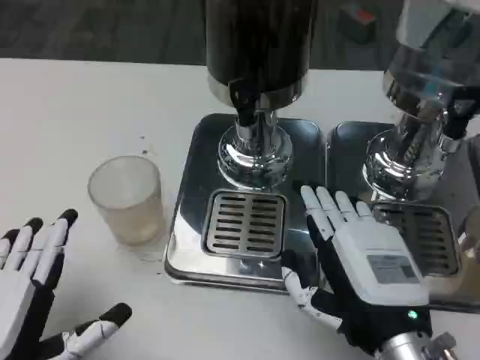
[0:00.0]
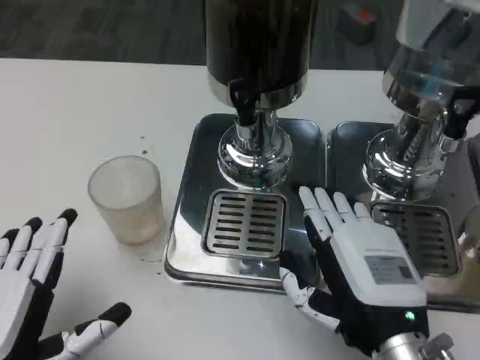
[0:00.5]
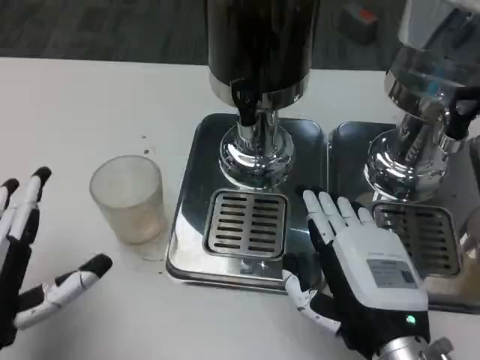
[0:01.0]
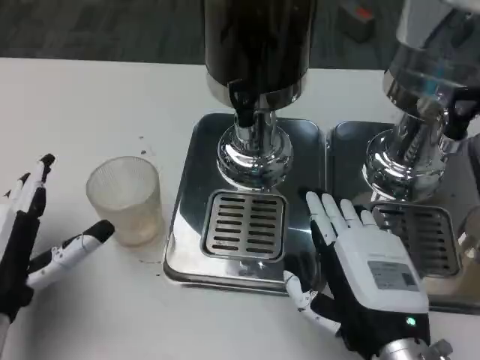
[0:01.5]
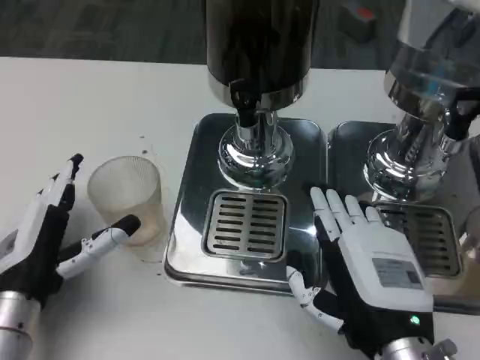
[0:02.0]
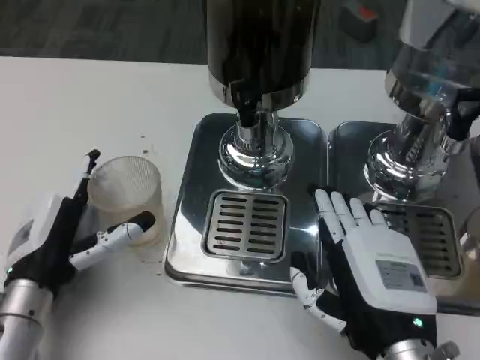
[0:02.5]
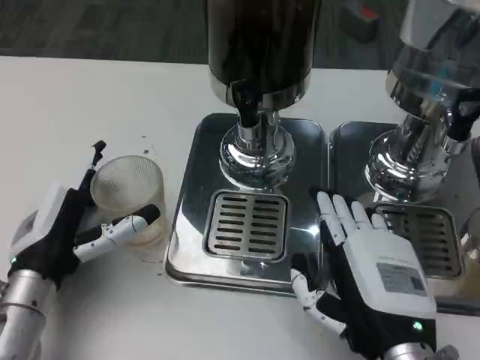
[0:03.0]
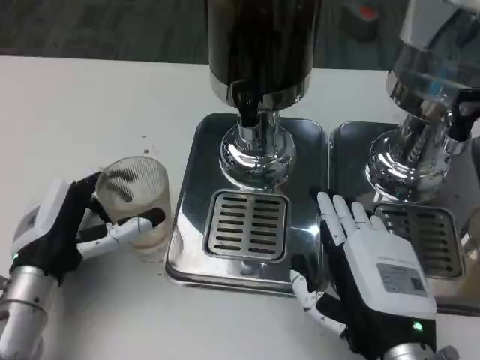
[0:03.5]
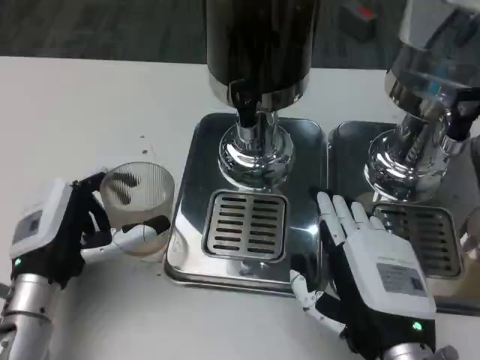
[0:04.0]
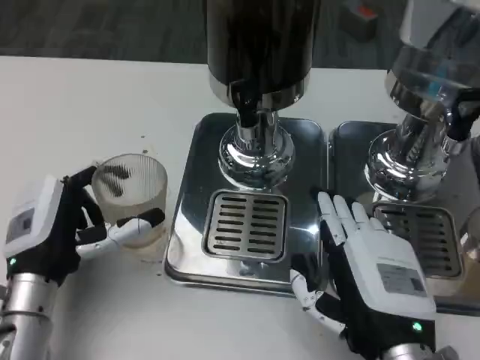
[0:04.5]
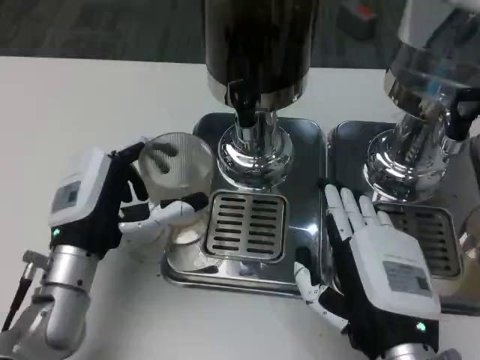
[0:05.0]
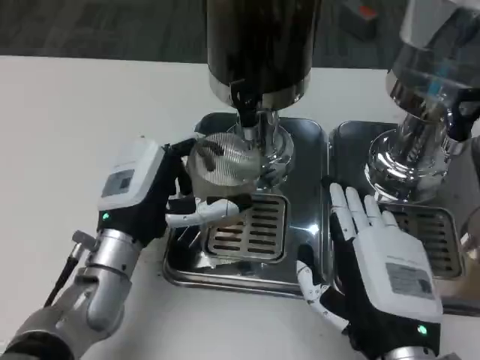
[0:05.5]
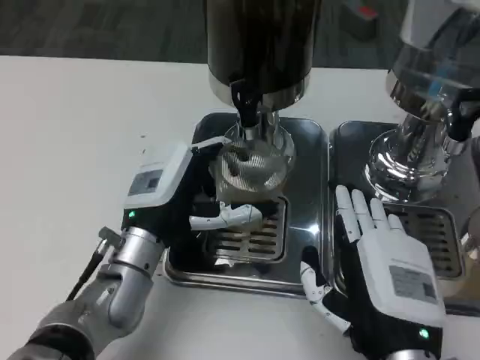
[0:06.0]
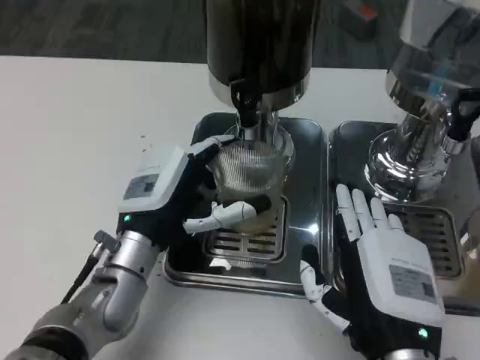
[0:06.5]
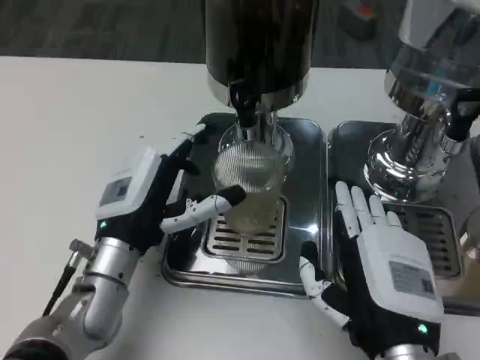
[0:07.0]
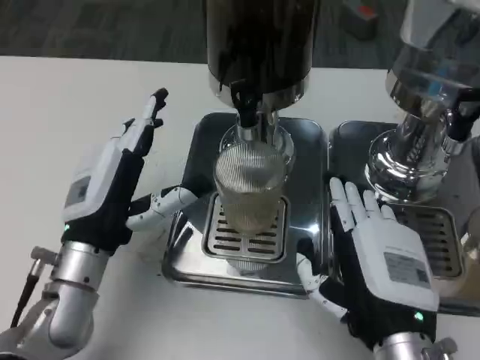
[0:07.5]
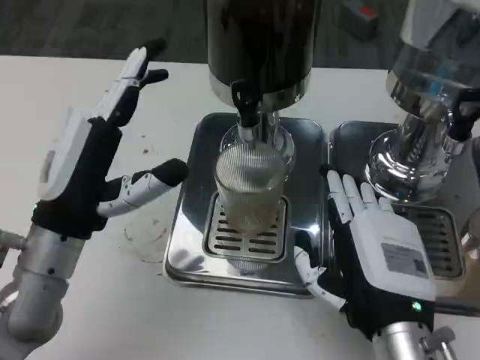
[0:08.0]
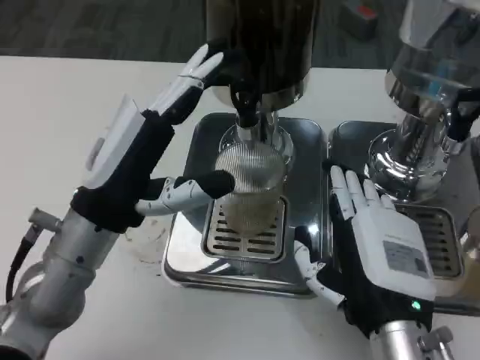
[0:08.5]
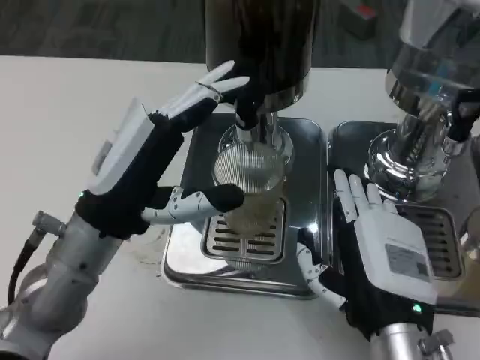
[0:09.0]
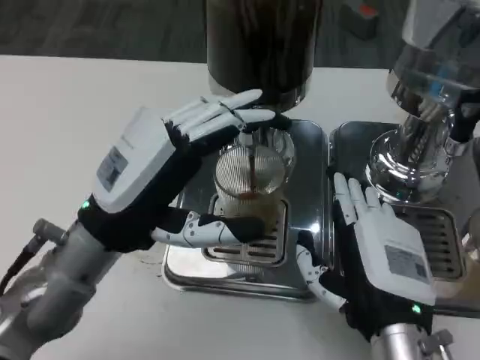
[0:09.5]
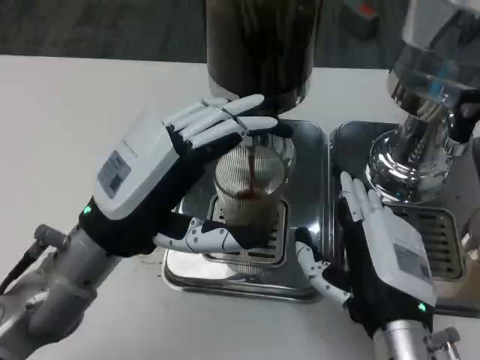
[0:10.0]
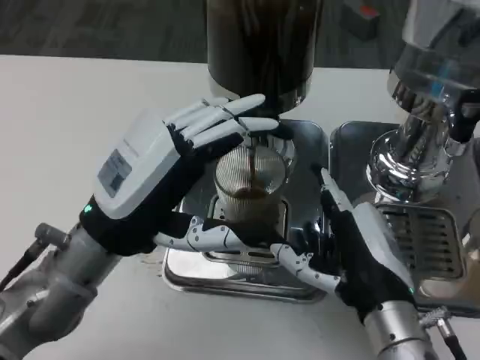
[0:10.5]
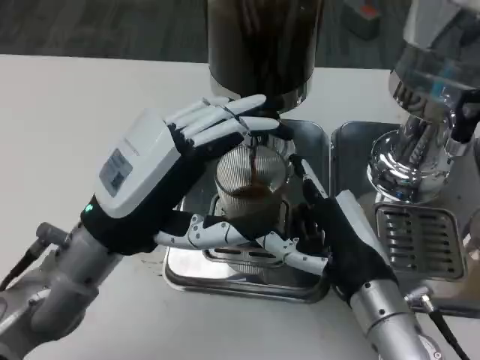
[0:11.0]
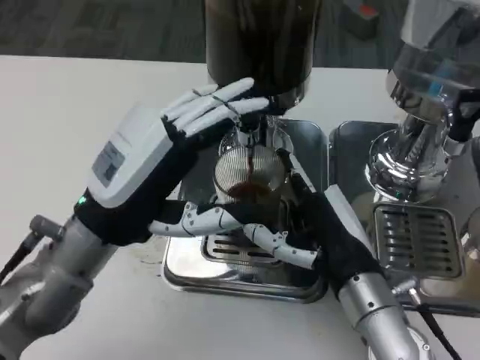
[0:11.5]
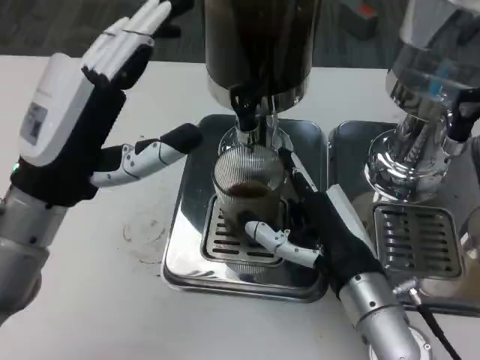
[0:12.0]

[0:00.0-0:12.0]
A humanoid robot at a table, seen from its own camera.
Task of the whole recording: Grasp the cup under the faucet to collect the drink, then remove the cup.
0:00.0 to 0:02.0: The left hand is displaced forward by about 10 cm.
0:02.0 to 0:04.0: The hands stay close to where they were, moving slightly.
0:04.0 to 0:06.0: The left hand goes about 10 cm to the right.
0:06.0 to 0:08.0: The left hand shifts roughly 5 cm to the left.
0:10.0 to 0:12.0: The right hand shifts approximately 5 cm forward.

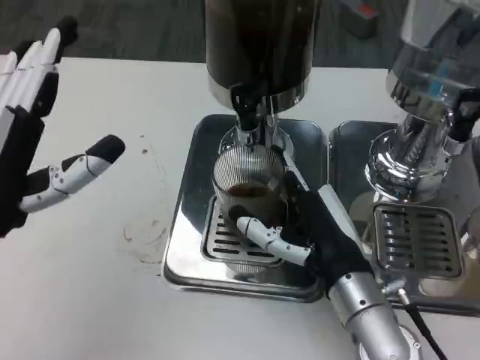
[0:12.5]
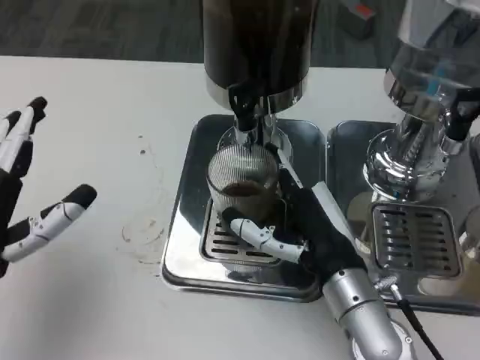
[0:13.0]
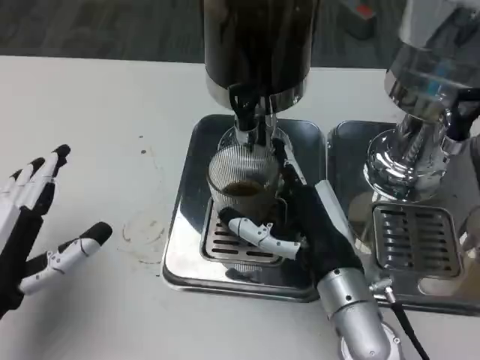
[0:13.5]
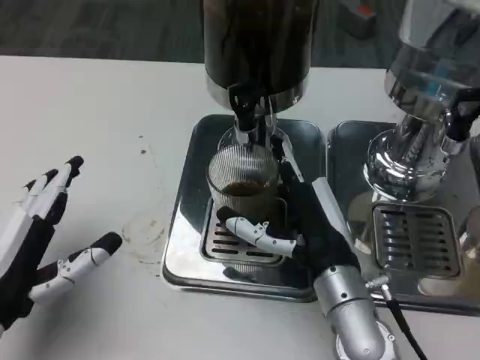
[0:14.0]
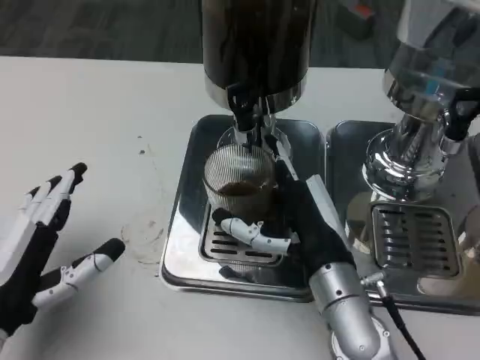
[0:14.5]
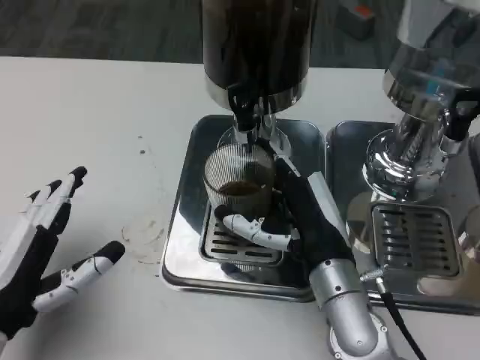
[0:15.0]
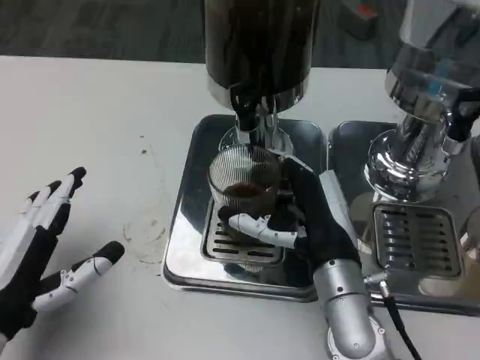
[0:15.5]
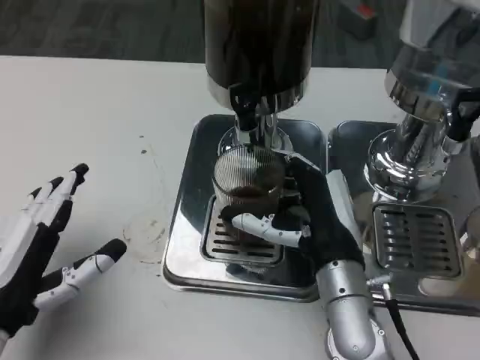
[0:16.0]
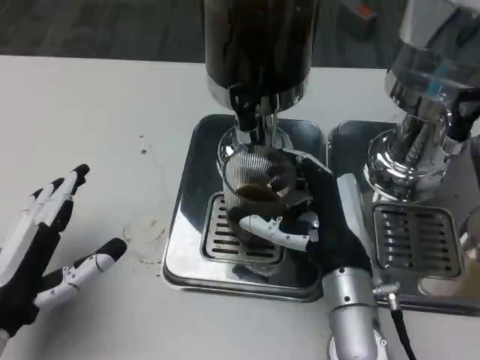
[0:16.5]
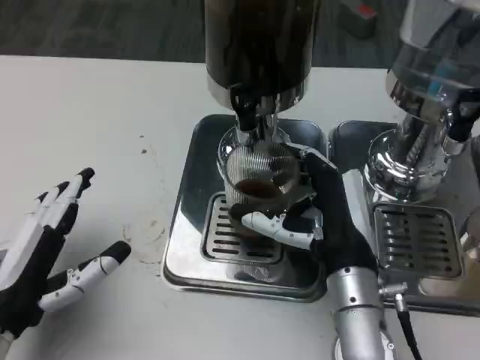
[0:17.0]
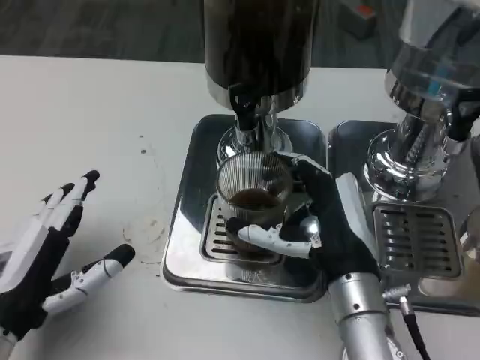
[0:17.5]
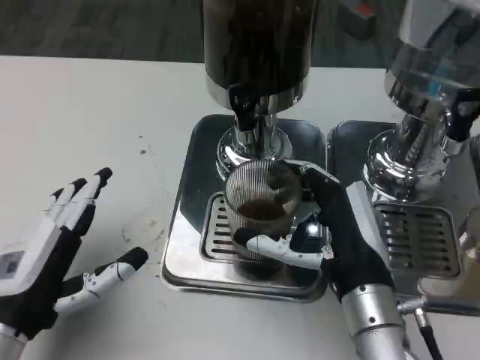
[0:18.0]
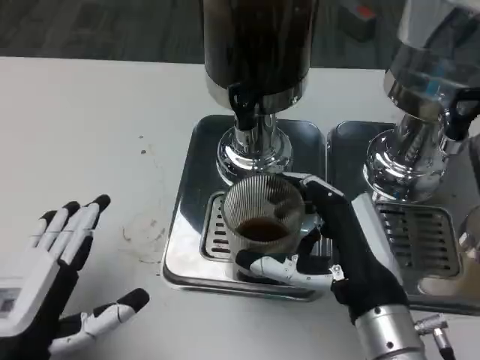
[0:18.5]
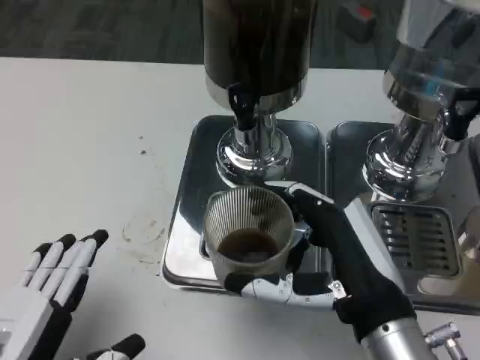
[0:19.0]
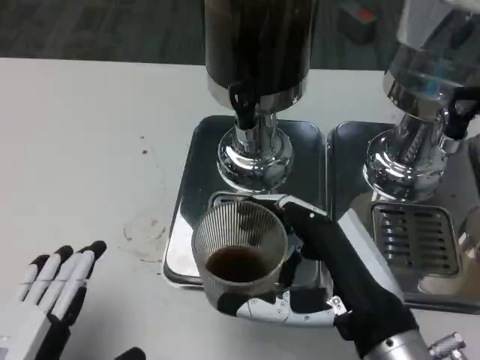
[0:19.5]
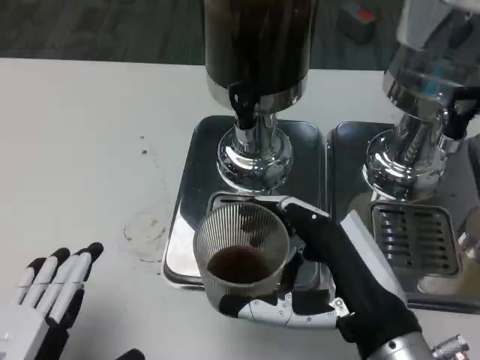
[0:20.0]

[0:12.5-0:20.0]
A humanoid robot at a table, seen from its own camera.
Task of the whole recording: Grasp the cup under the faucet to collect the drink, then remove the cup.
0:12.5 to 0:14.5: The left hand is displaced downward by roughly 5 cm.
0:14.5 to 0:18.0: The hands stay close to where they were, moving slightly.
0:18.0 to 0:20.0: The left hand shifts about 10 cm backward. Meanwhile the right hand heads backward, covering some 5 cm.

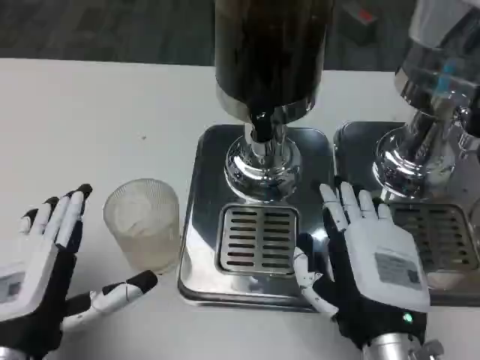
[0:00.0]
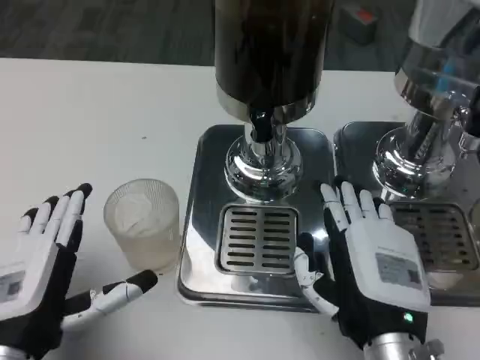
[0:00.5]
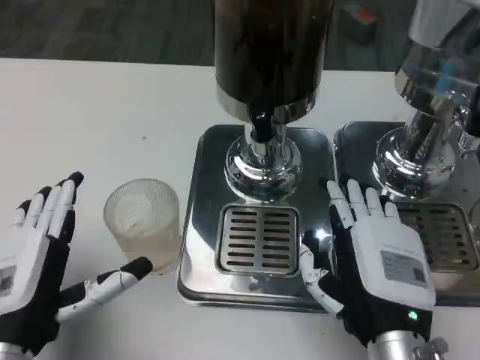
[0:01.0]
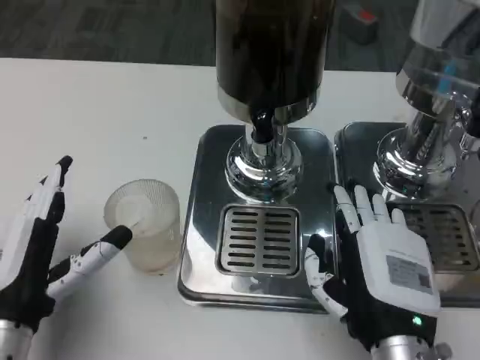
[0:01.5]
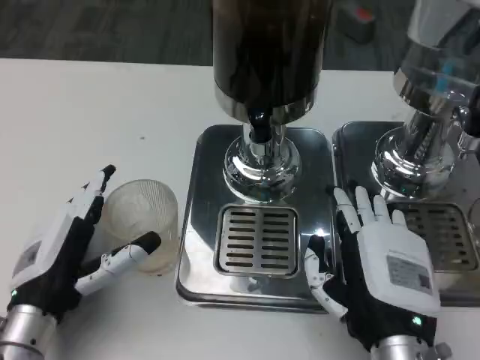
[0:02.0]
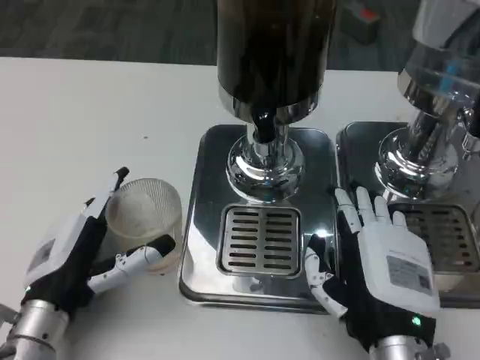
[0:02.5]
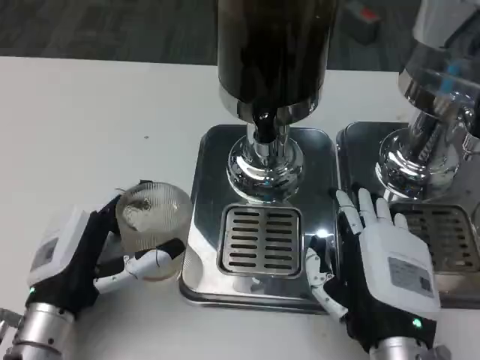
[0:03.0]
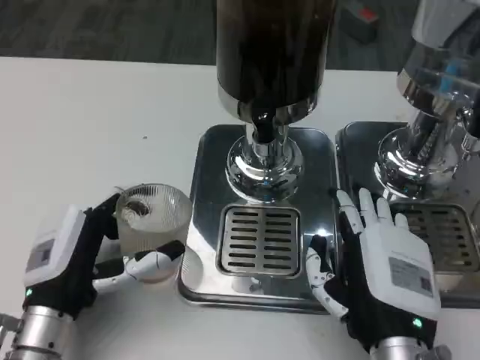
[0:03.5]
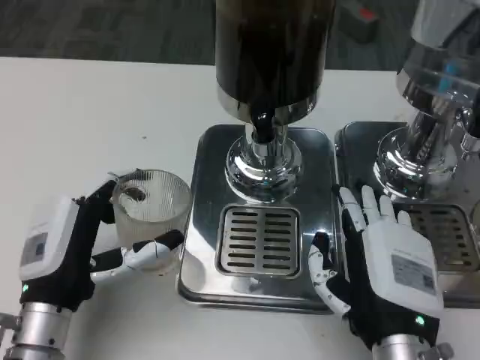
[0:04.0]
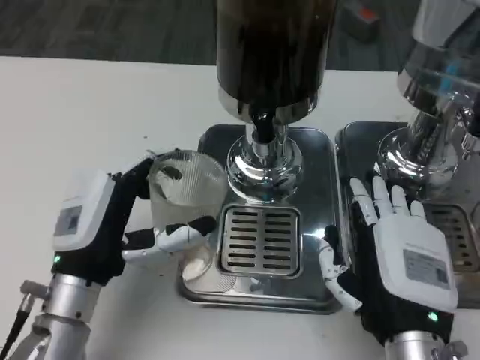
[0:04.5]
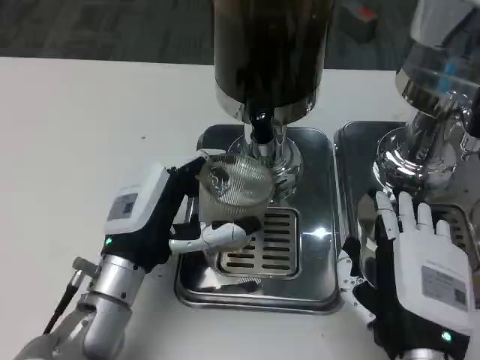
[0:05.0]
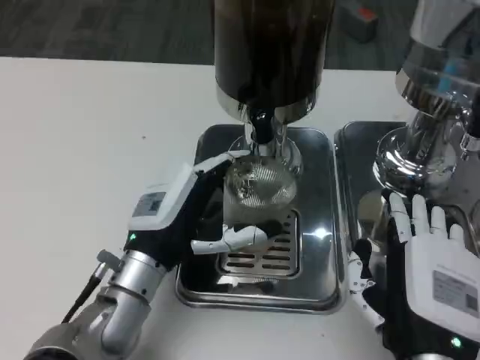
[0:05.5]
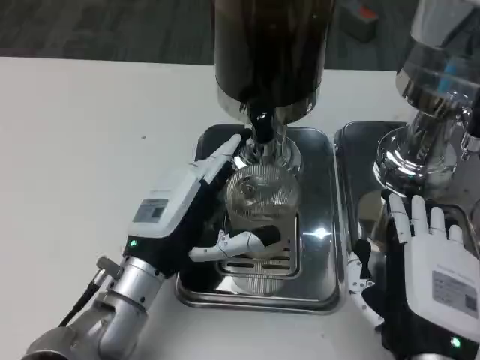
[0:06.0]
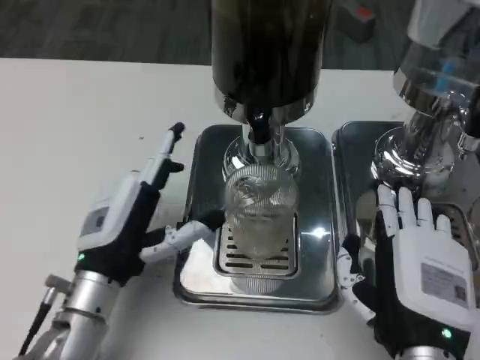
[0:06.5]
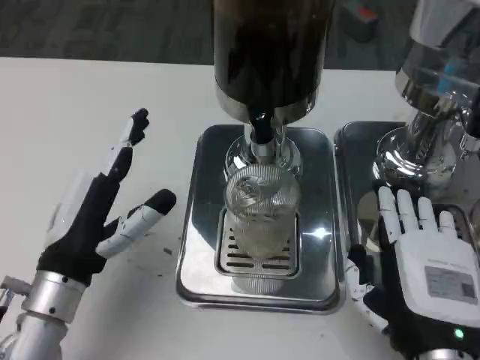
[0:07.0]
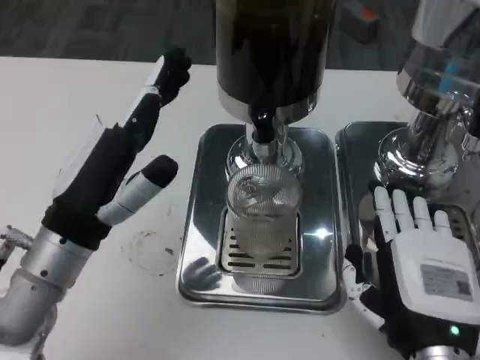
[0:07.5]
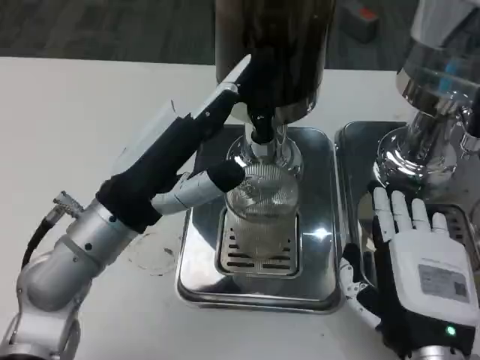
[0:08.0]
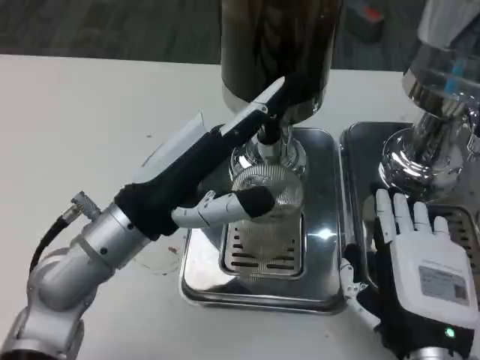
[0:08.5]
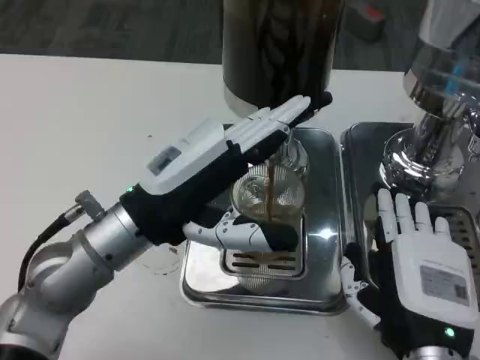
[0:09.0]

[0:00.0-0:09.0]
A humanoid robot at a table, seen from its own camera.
Task of the whole recording: Grasp the cup under the faucet to collect the drink, then remove the cup.
0:00.0 to 0:02.0: The left hand heads forward, covering roughly 5 cm.
0:02.0 to 0:04.5: The left hand moves roughly 5 cm.
0:07.0 to 0:09.0: The left hand goes roughly 10 cm upward.
